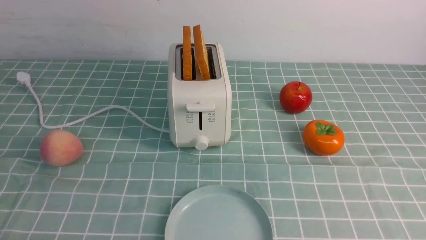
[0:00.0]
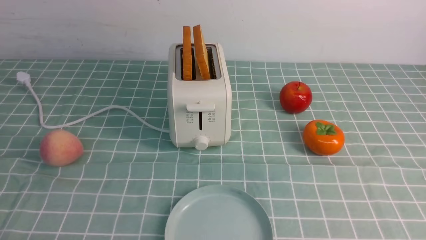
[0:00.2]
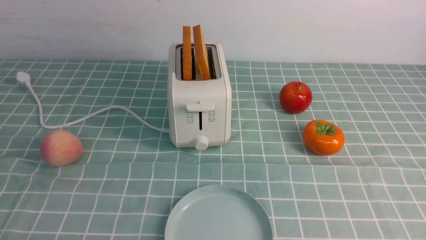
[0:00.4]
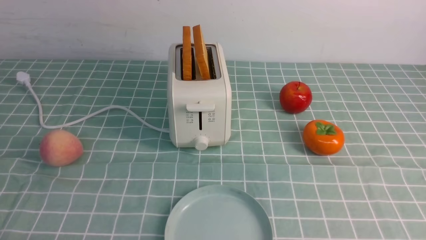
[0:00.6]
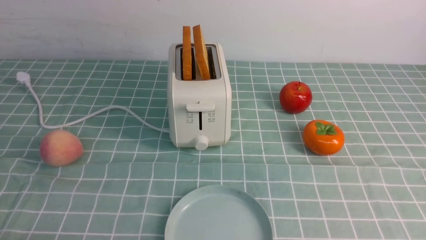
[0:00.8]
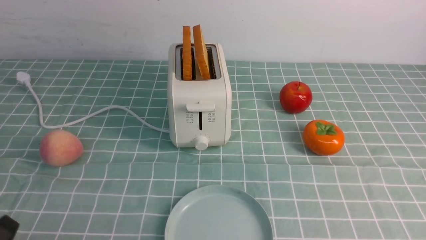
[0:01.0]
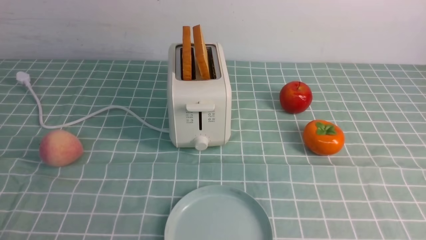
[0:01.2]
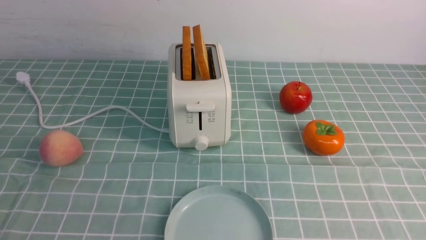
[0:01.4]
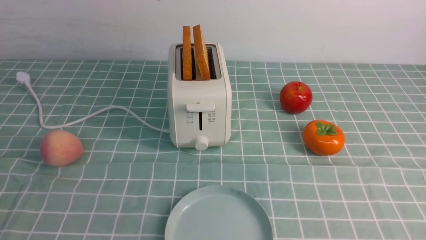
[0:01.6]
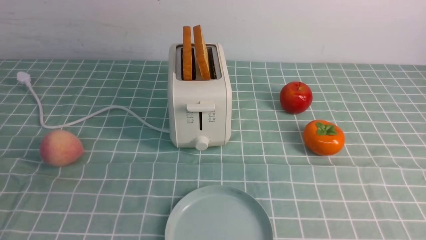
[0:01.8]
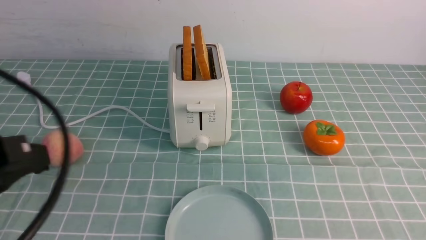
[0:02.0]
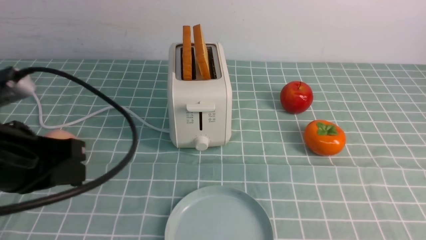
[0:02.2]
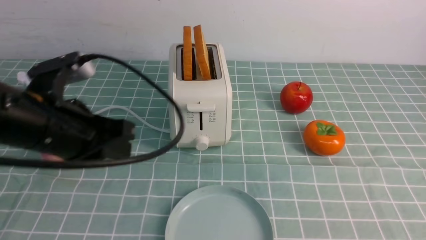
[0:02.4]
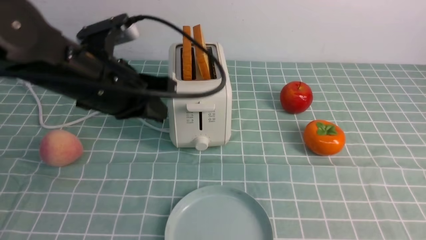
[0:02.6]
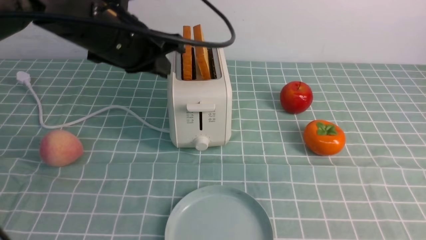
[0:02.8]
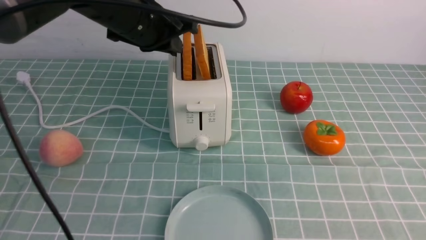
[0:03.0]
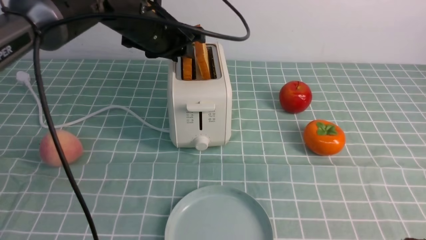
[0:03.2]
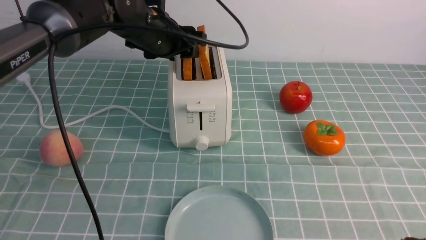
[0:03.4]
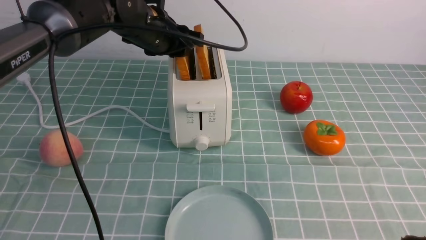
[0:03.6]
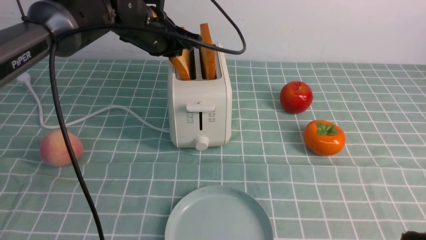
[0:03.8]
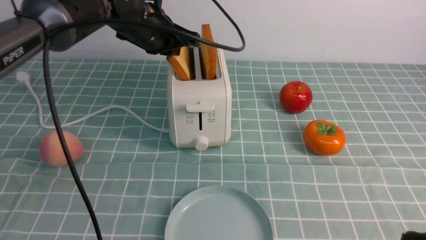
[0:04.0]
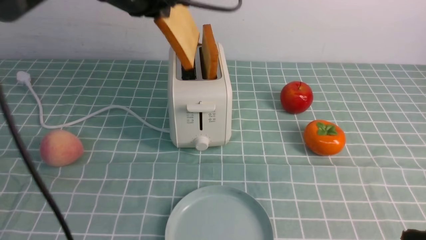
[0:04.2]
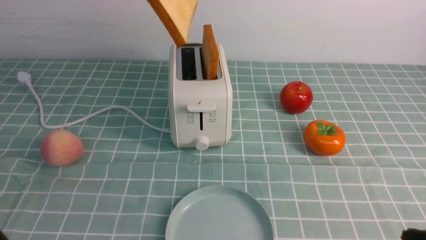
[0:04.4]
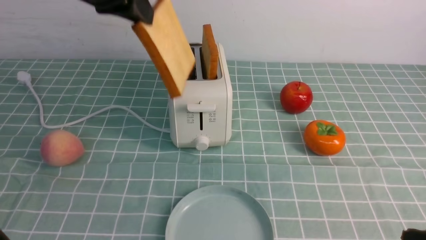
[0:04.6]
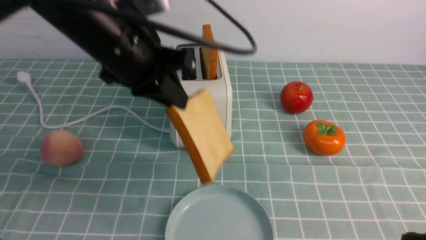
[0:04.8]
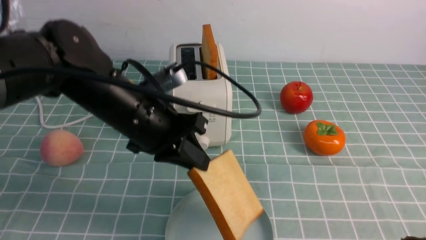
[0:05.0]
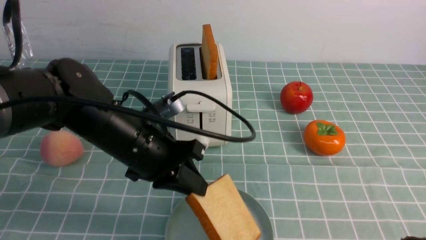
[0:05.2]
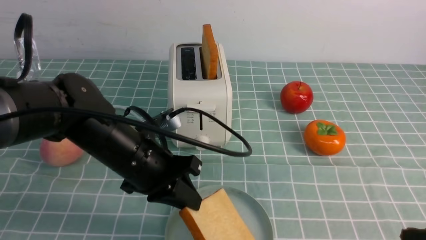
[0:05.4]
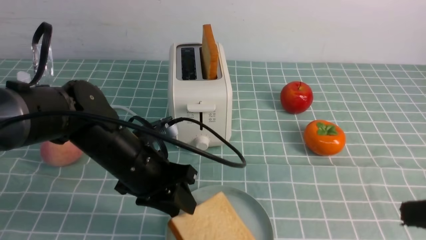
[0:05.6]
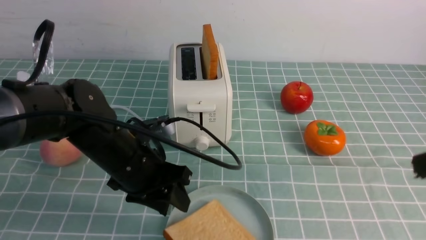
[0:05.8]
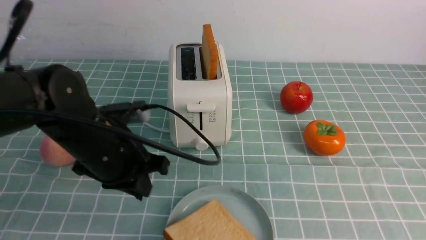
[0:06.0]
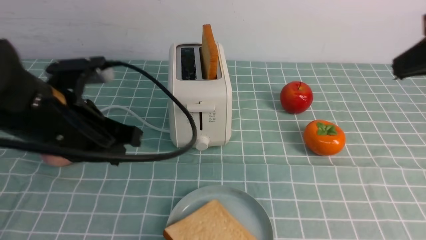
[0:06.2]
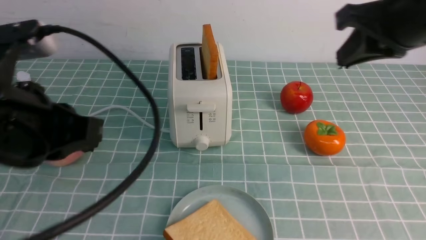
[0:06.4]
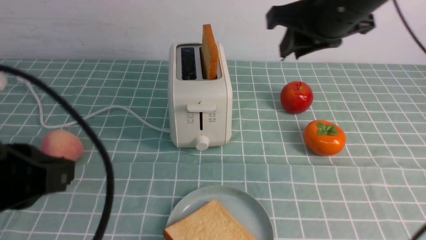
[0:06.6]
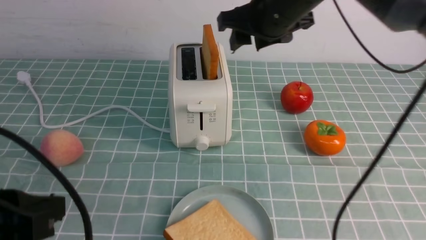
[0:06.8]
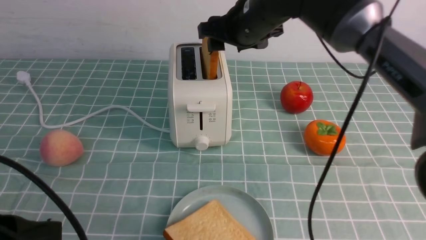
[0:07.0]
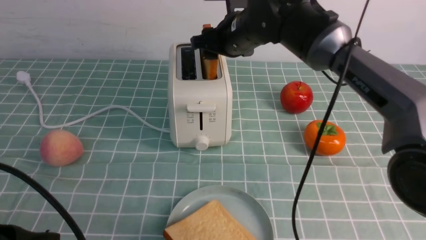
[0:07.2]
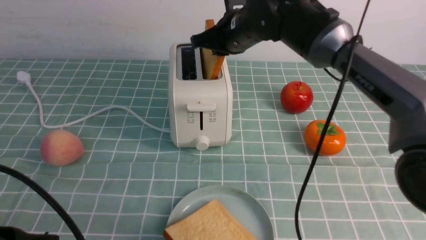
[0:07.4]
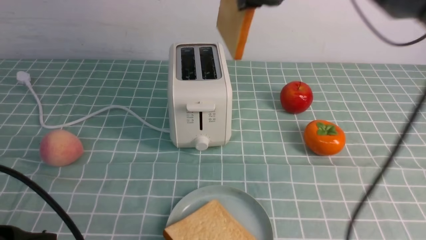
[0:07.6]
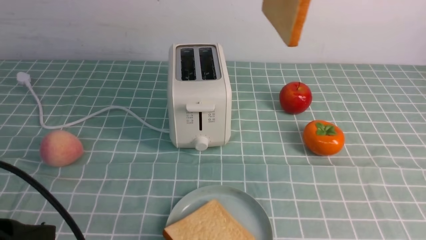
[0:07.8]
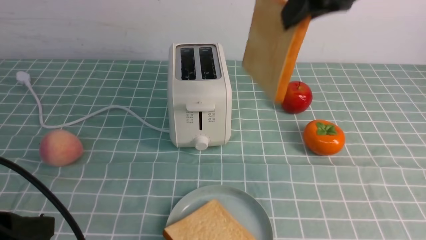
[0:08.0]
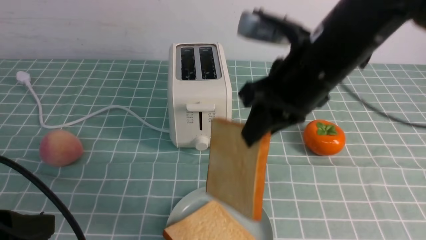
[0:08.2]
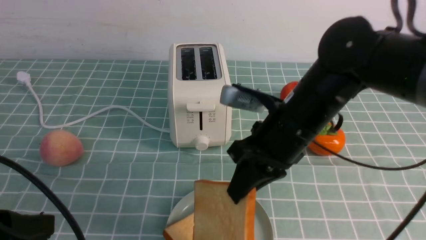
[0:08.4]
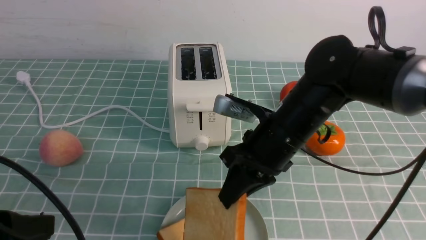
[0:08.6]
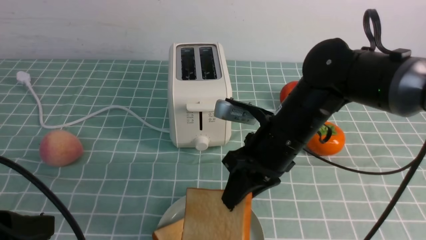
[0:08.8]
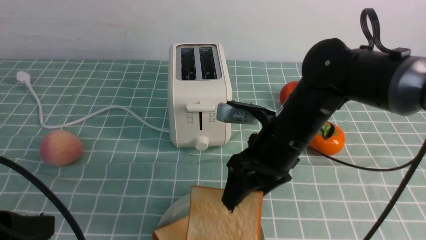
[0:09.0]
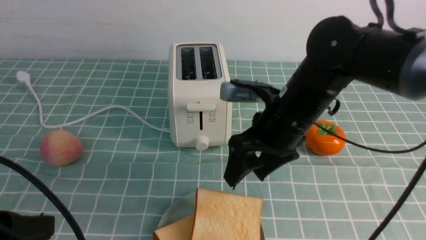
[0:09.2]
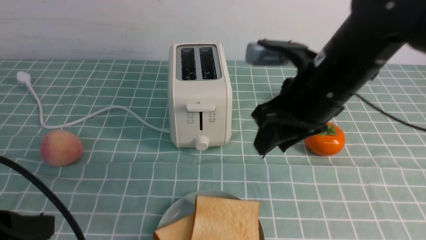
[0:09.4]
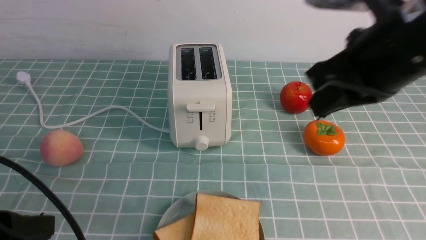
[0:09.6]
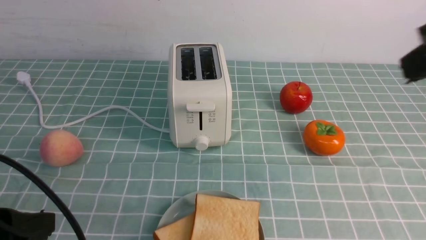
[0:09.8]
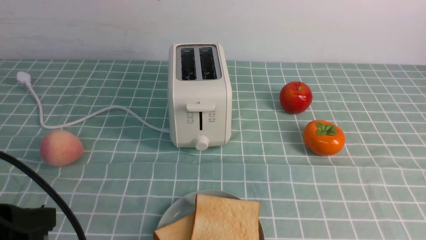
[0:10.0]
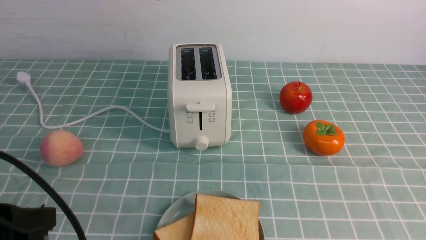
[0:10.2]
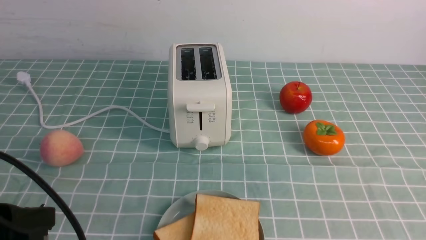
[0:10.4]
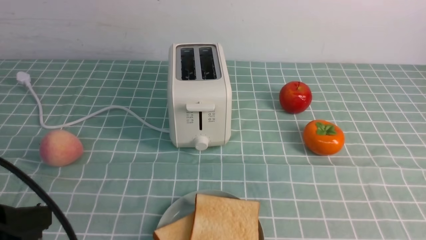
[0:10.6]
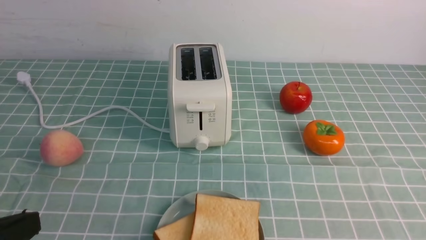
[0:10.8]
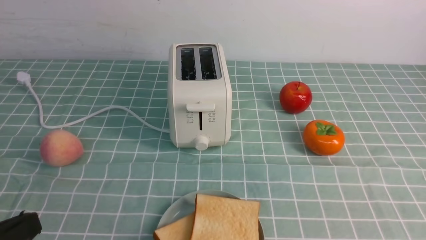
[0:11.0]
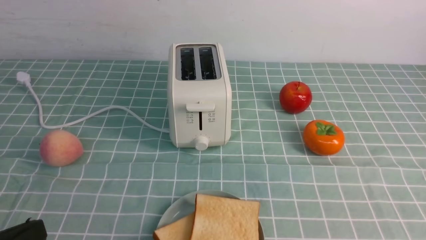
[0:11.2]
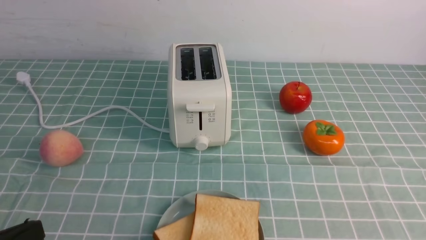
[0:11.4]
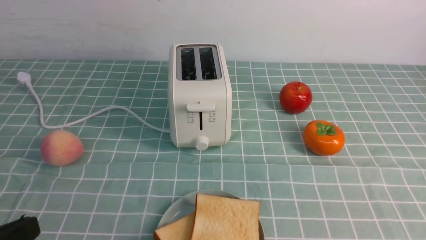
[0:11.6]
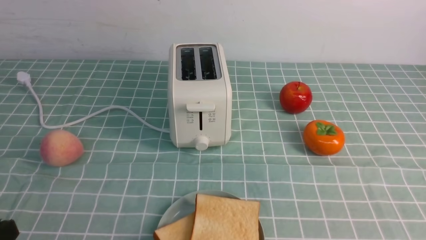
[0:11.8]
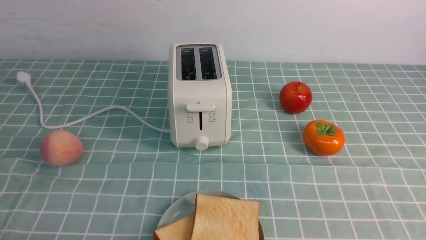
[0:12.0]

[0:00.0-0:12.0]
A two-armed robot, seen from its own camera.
Task of the whole recording: take toasted bread from bread machine on blue coffee table place on plate.
Step, 0:00.0 to 0:04.2: use the left arm to take out a slice of bread.
Step, 0:04.4 to 0:05.6: use the left arm to put a slice of bread into the empty plate.
Step, 0:05.8 to 0:07.8: use the right arm to take out a slice of bread.
Step, 0:08.0 to 0:09.8: use the right arm to put a slice of bread into the plate.
0:01.6 to 0:03.0: The right gripper moves upward, approximately 10 cm, and closes its fingers. The left gripper is displaced forward and to the right by approximately 35 cm.
0:03.0 to 0:04.4: The left gripper goes approximately 10 cm upward, and opens and closes again.
0:04.4 to 0:06.0: The right gripper travels upward and forward by approximately 15 cm, while the left gripper moves downward and backward, some 20 cm, and opens its fingers.
0:06.0 to 0:07.6: The right gripper shifts roughly 30 cm forward and to the left, and opens, then closes once more; the left gripper is displaced backward and to the left by about 20 cm, and closes its fingers.
0:07.6 to 0:09.0: The right gripper shifts roughly 20 cm downward and backward, and opens its fingers.
0:09.0 to 0:10.4: The right gripper goes roughly 30 cm backward and to the right, and closes up.
0:10.4 to 0:12.0: The left gripper moves downward, about 10 cm.

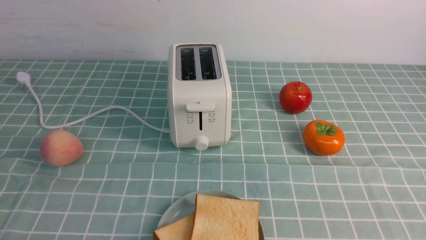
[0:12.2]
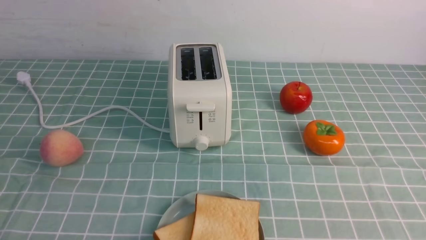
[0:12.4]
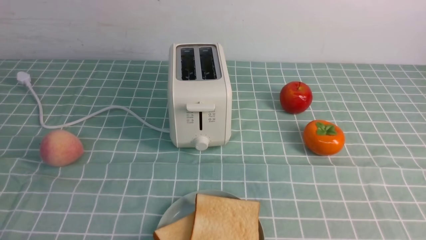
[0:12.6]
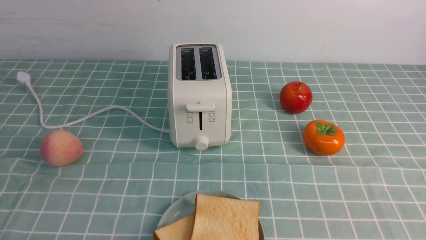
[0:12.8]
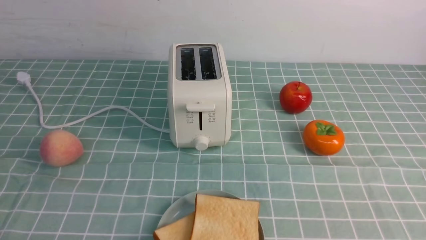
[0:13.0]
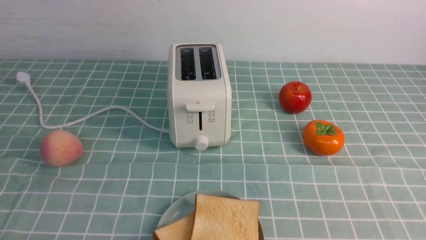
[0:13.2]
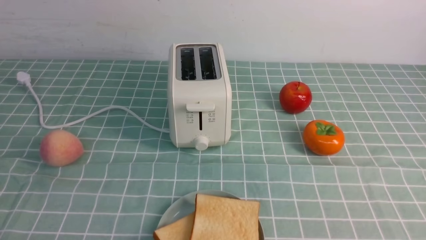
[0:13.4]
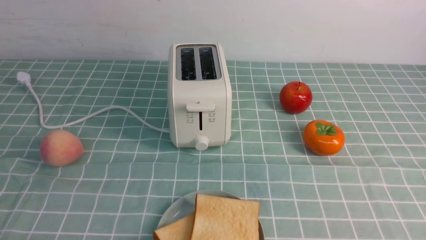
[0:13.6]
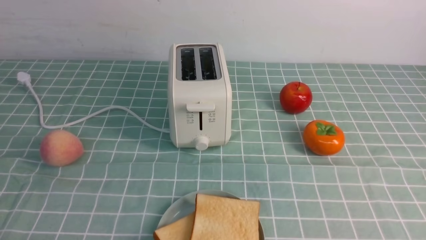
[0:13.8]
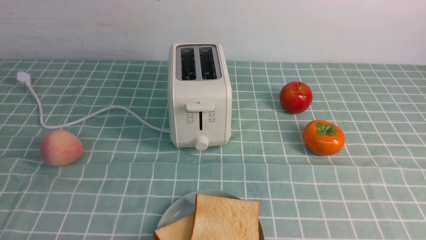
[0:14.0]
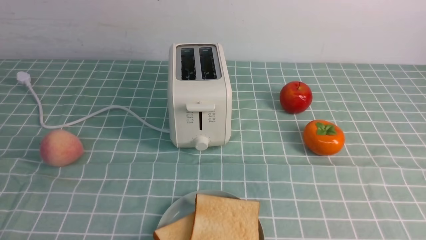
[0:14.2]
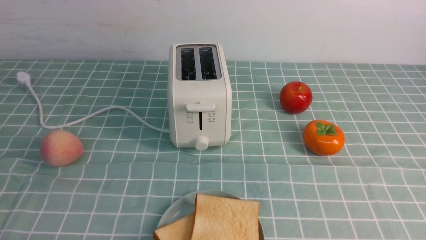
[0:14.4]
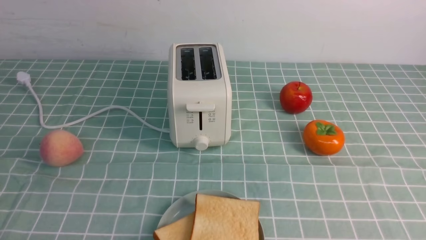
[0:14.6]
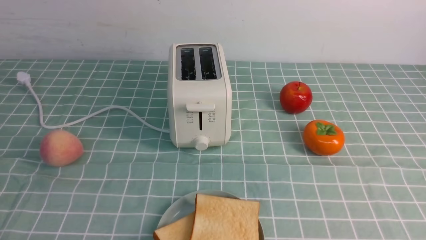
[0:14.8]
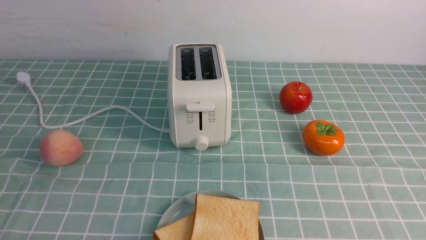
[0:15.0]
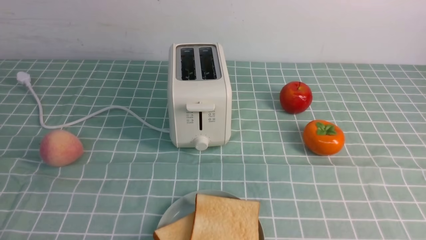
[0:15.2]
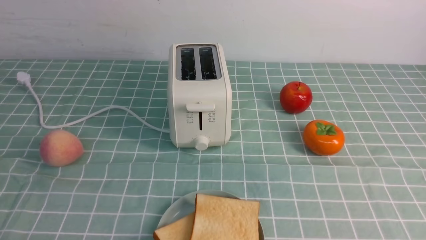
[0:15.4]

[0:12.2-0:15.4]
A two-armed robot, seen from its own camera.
Task of the whole recording: take toasted bread from bread machine on blue coffee table place on plate.
0:13.8 to 0:15.4: Both grippers stay put.

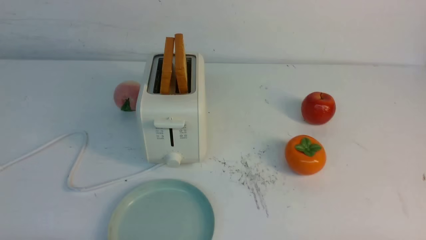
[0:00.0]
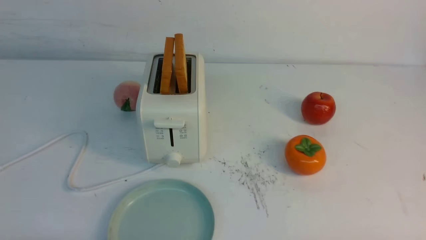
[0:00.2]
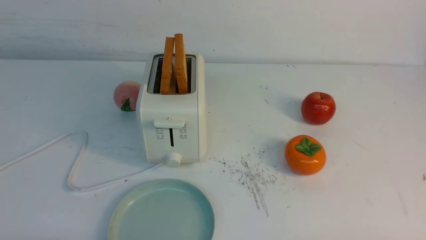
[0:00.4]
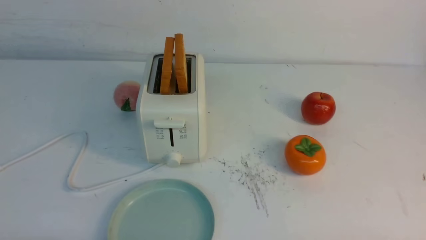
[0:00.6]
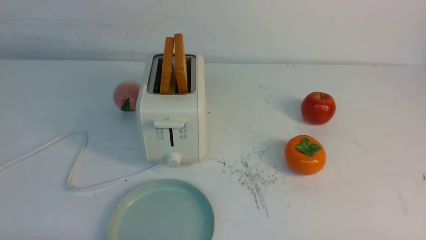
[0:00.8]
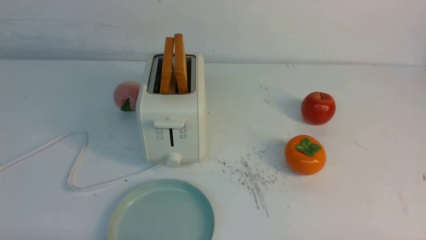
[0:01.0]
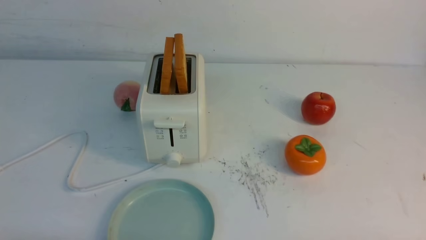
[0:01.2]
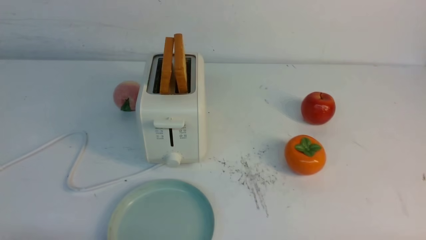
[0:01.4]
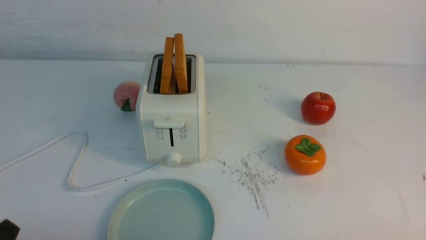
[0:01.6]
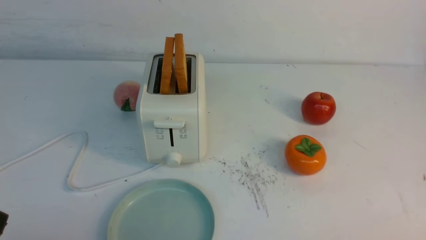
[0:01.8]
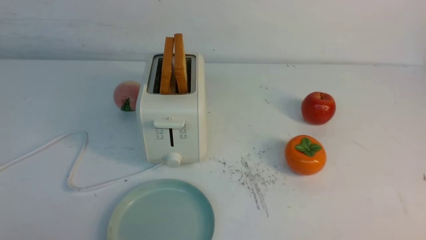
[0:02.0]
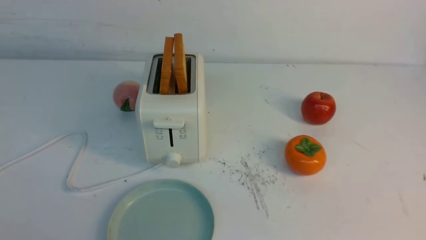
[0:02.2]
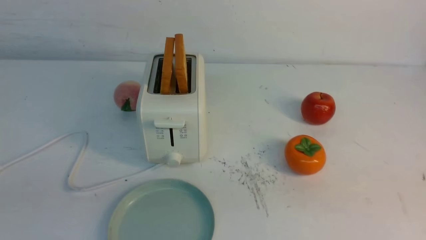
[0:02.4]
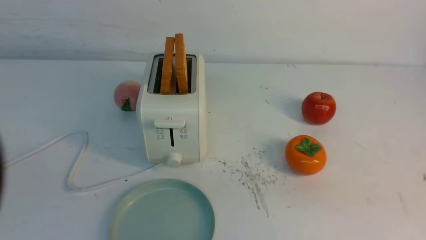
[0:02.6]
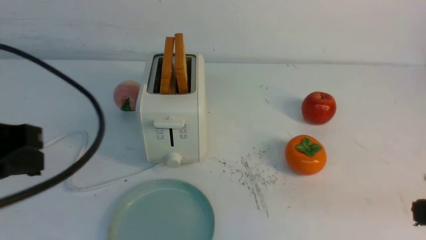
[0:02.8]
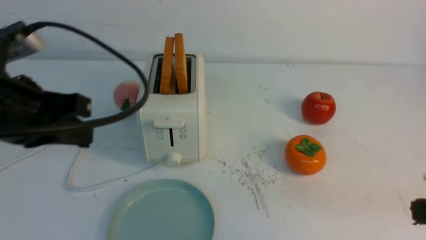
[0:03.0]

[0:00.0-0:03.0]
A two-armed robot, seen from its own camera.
Task of the whole recording: take toasted bread from bread machine on white table place on plate.
0:01.6 to 0:03.0: The left gripper travels upward and forward by approximately 25 cm, and closes.
